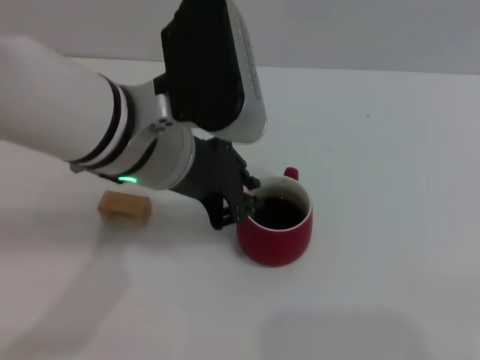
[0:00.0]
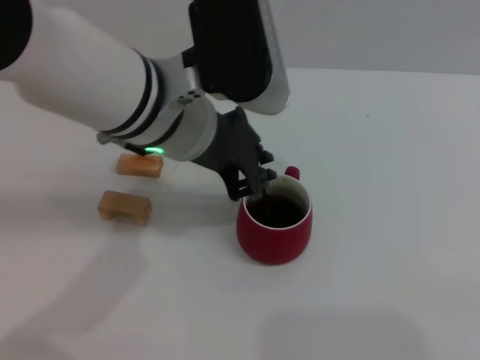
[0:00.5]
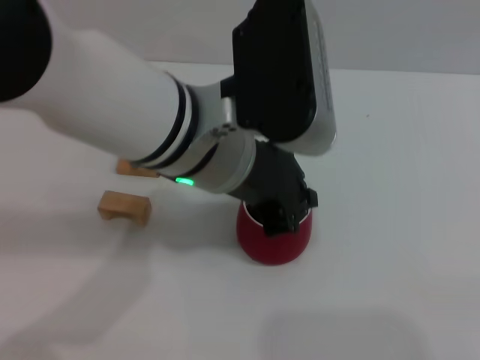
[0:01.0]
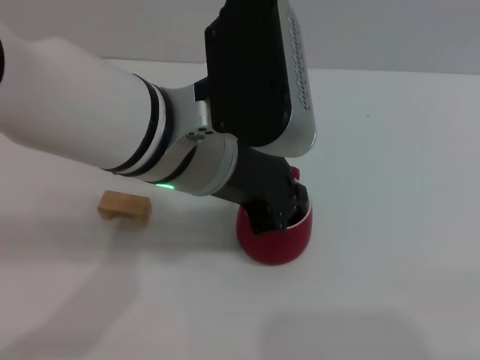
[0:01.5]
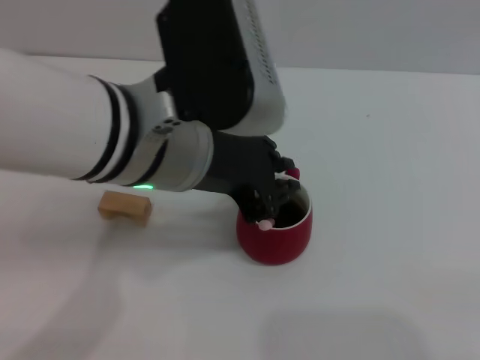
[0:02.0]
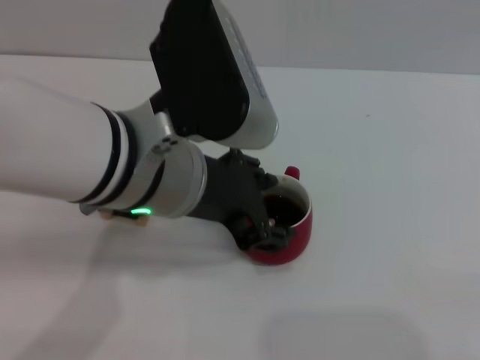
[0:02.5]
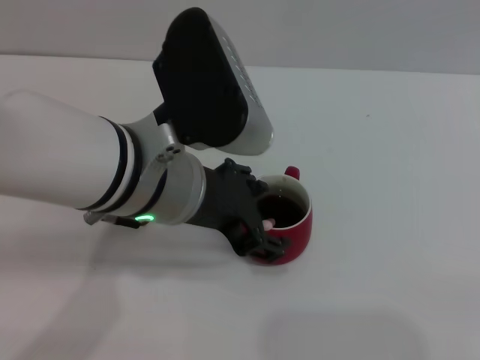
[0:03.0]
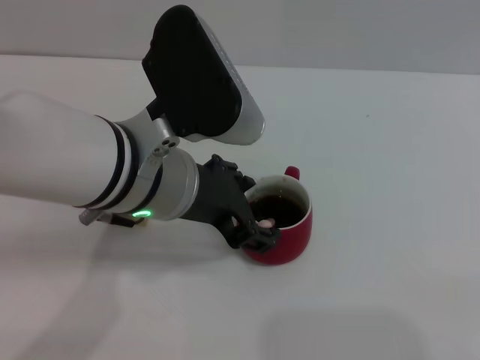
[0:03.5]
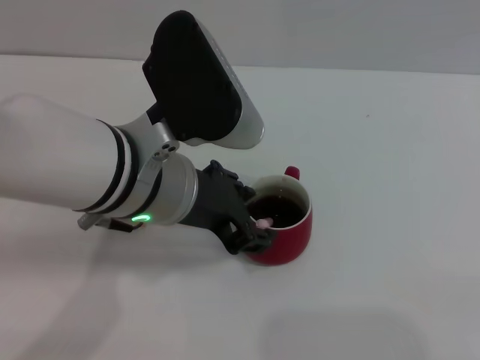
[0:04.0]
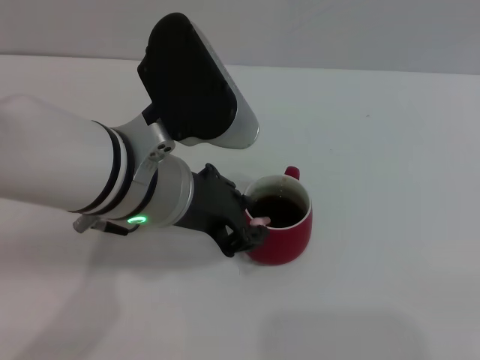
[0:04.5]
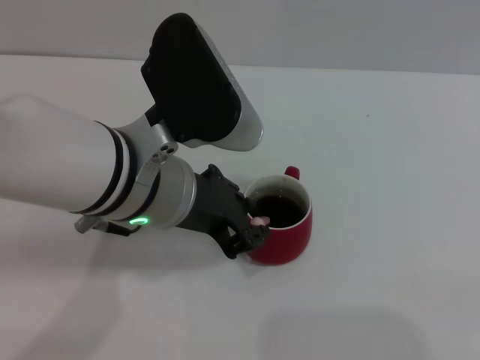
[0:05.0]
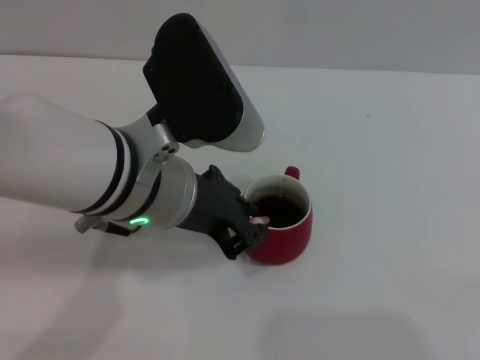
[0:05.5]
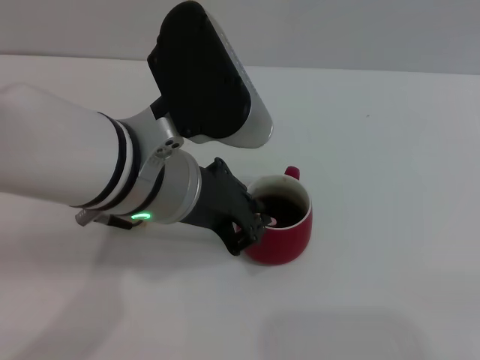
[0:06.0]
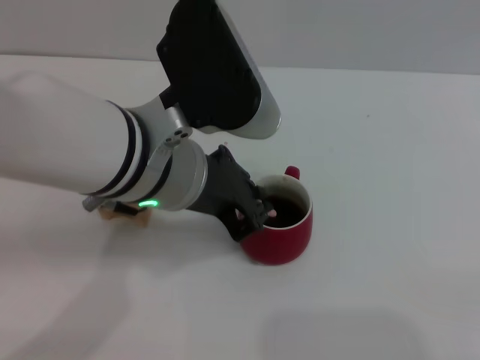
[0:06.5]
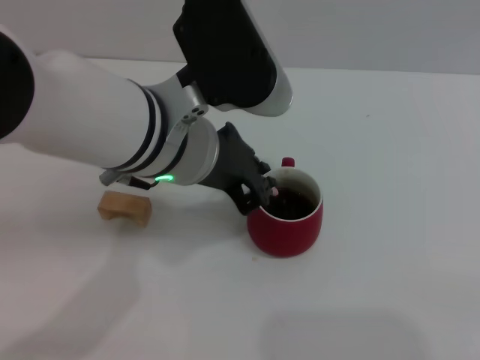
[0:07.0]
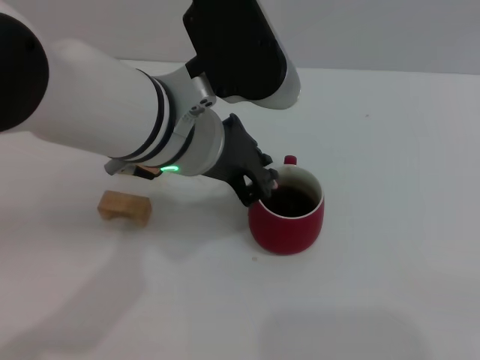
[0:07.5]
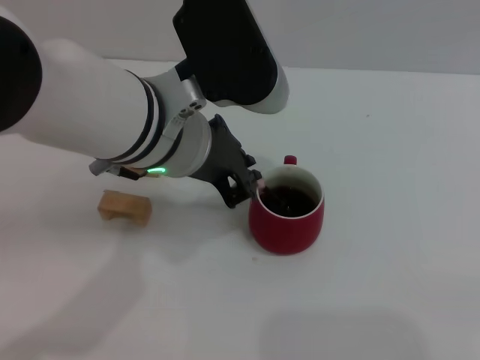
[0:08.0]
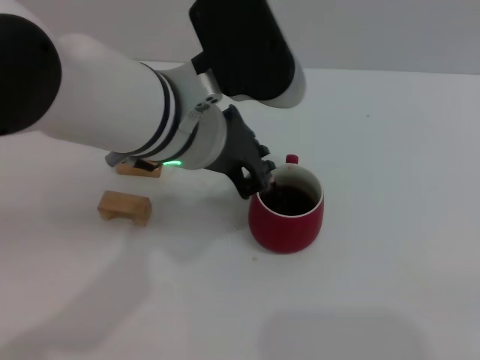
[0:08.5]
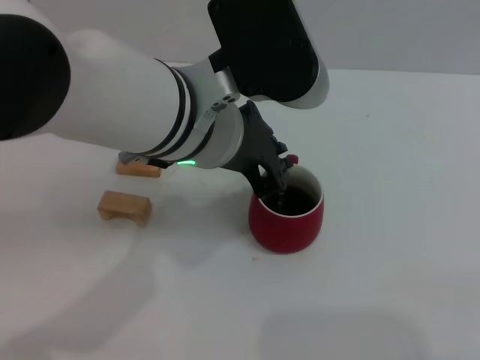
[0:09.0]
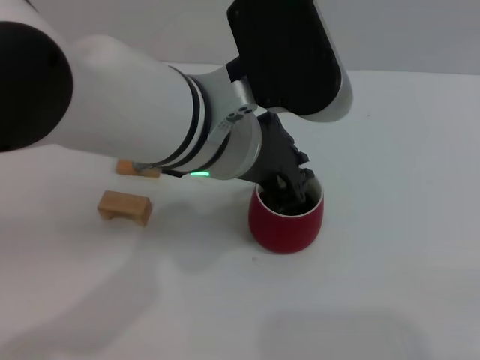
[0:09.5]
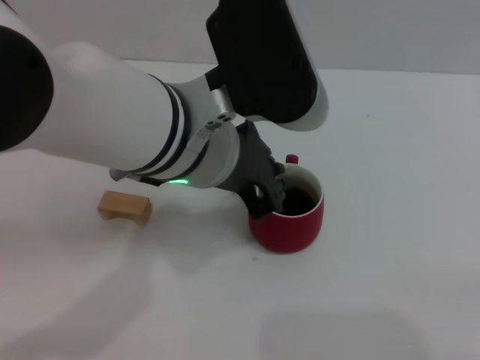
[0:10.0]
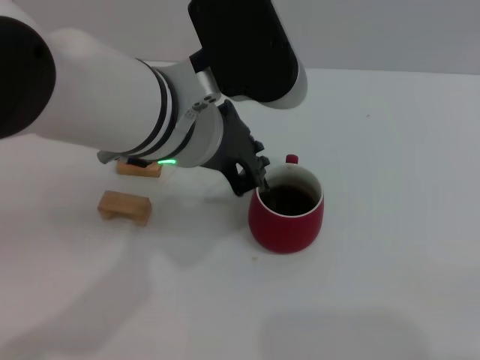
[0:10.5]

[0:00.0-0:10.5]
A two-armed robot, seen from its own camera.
Task of the whole recording: Move the red cup to the center, lift the pink spoon, stir it three times in the cup, and put the spoon into the cup.
Step, 0:00.0 to 0:03.0: Stir the coffee in the cup with the left gripper.
0:00.0 to 0:02.0: The grippers stay close to where they were, moving slightly.
0:02.0 to 0:04.0: The left gripper opens.
0:04.0 to 0:06.5: The left gripper closes its fingers.
0:08.5 to 0:10.5: The grippers move only a little.

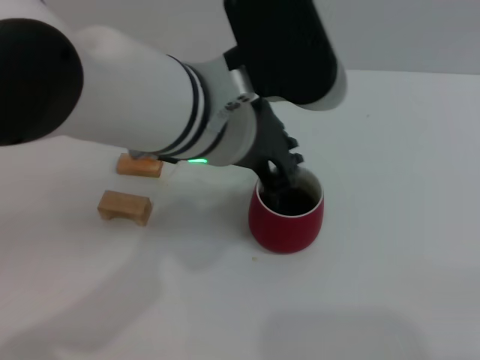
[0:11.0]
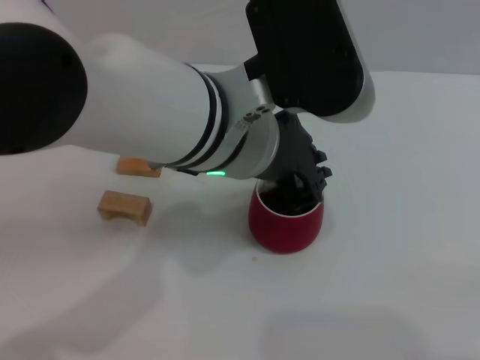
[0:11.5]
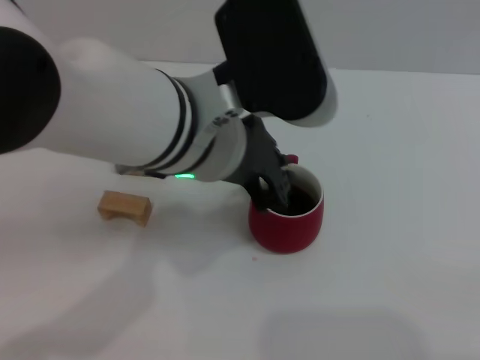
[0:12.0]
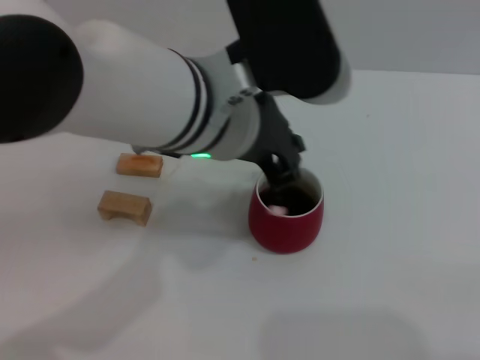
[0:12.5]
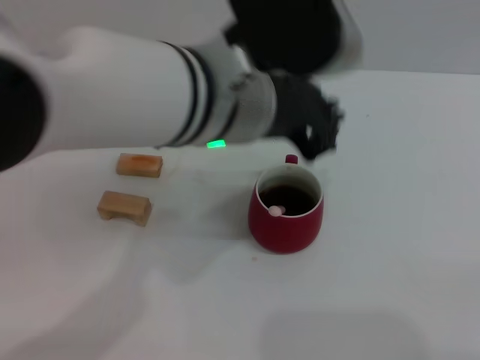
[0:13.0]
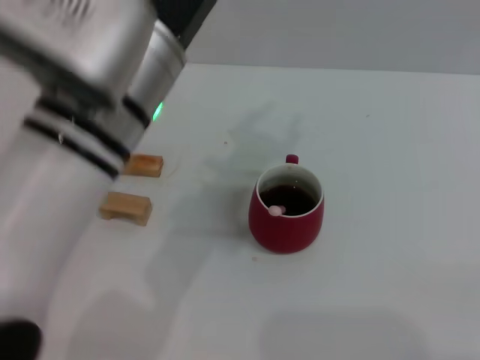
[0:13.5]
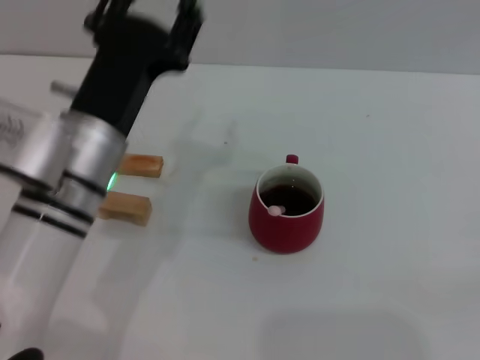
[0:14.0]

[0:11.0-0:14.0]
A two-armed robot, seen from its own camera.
Task of the whole recording: Move the red cup to the center, lift the pink spoon, stir it three times in the cup, and put the spoon into the cup.
0:11.0 to 0:12.5: The grippers move only a little.
0:12.5 to 0:14.0: The left gripper heads downward and to the left, covering approximately 15 cm, and opens up.
